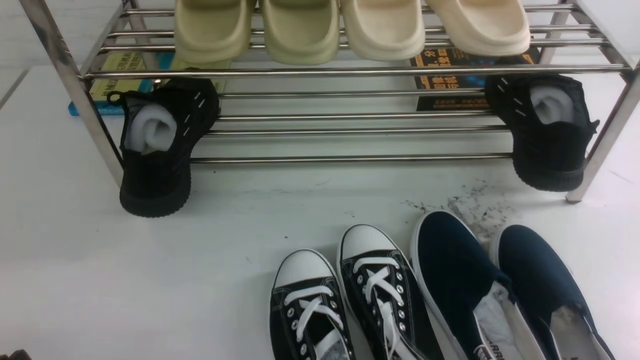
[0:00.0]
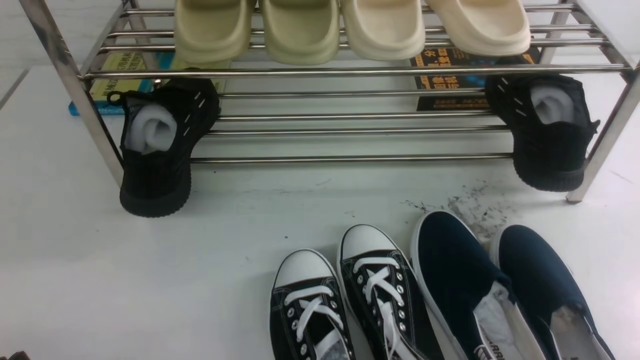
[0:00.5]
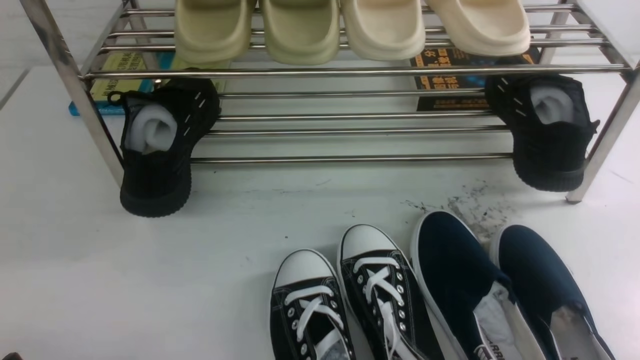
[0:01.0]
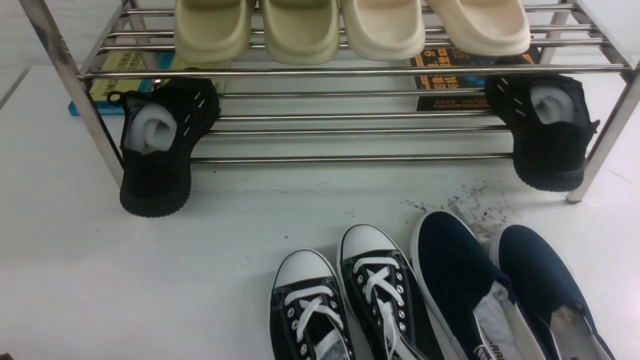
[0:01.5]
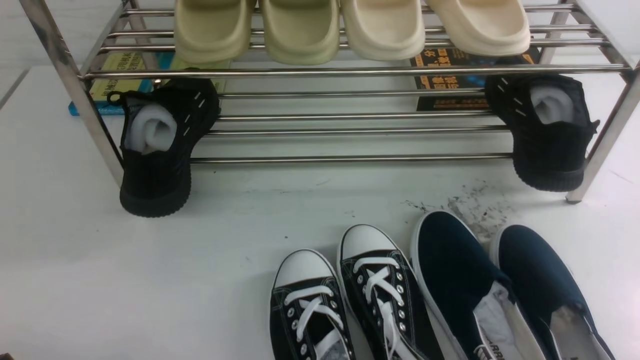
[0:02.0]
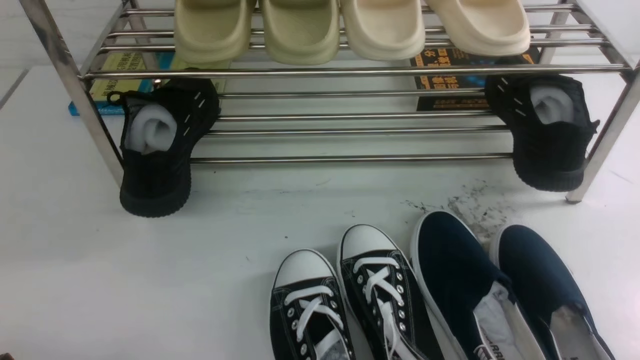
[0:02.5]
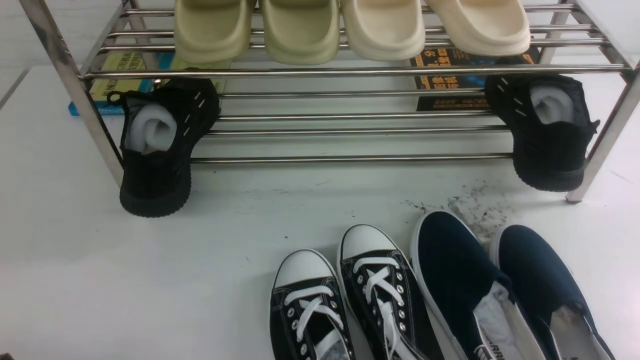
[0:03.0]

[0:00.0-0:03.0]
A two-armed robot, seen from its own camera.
0:01.5 to 0:03.0: Both grippers stay put.

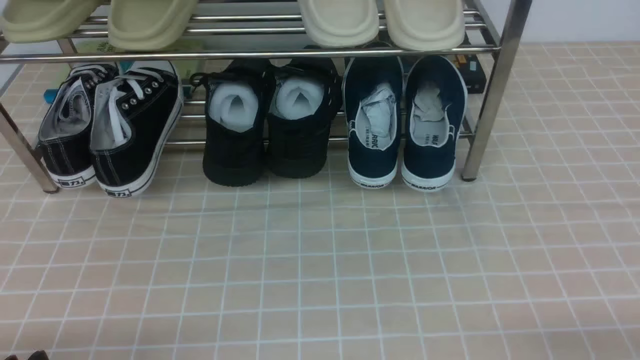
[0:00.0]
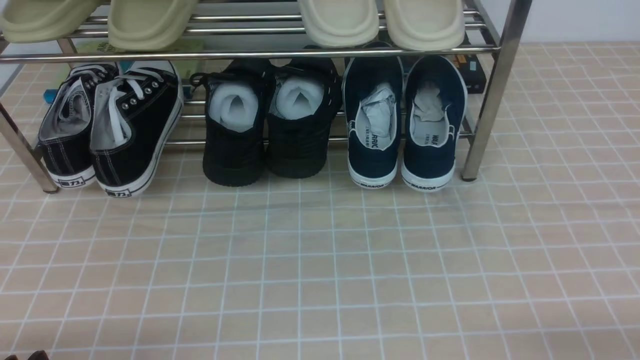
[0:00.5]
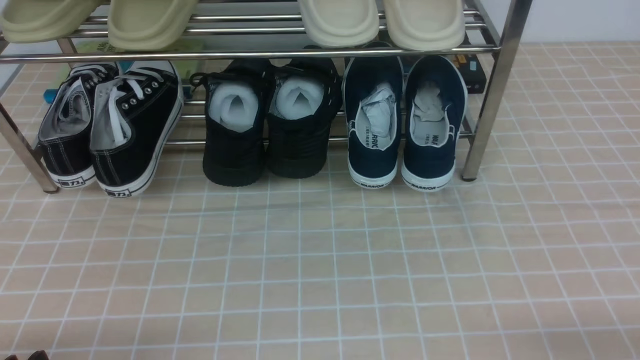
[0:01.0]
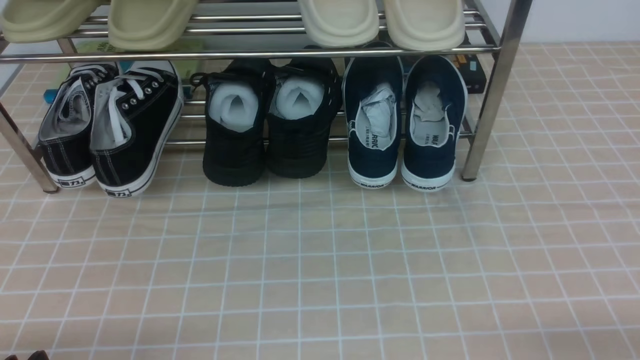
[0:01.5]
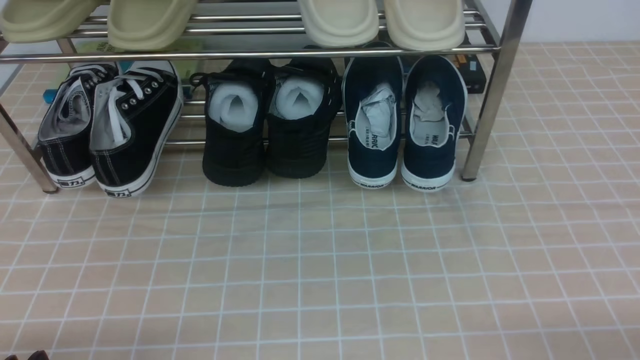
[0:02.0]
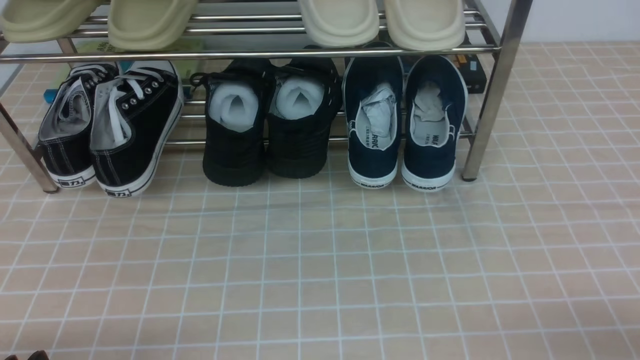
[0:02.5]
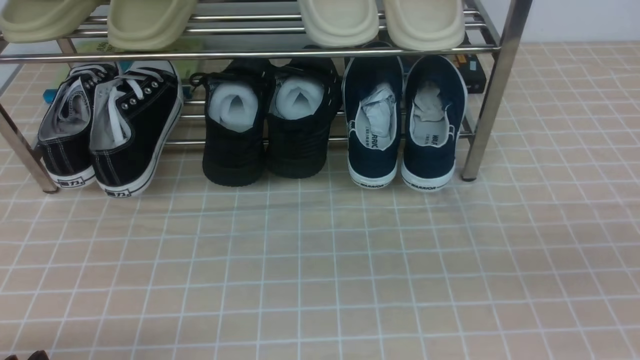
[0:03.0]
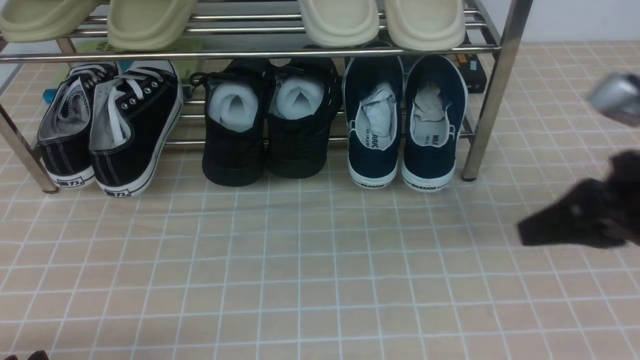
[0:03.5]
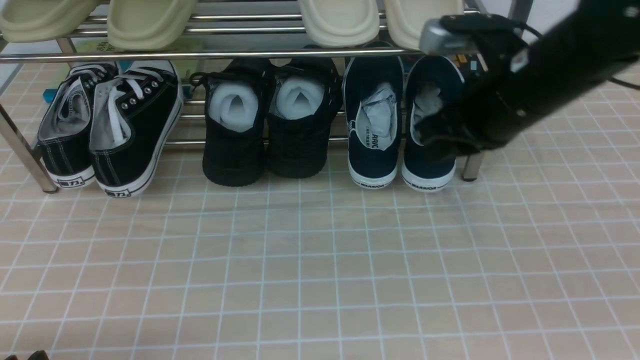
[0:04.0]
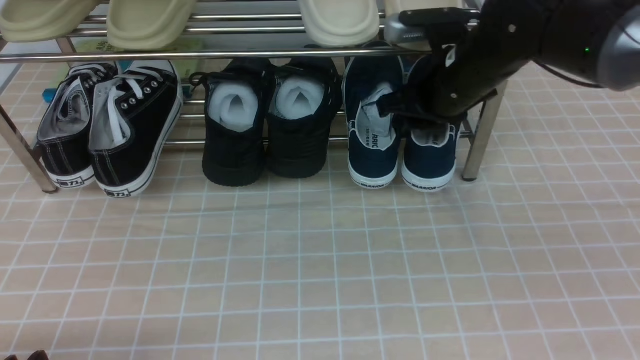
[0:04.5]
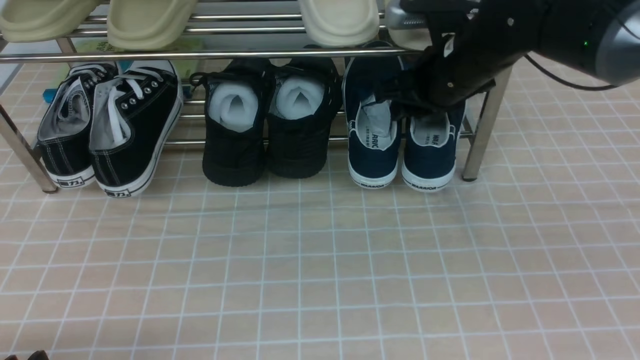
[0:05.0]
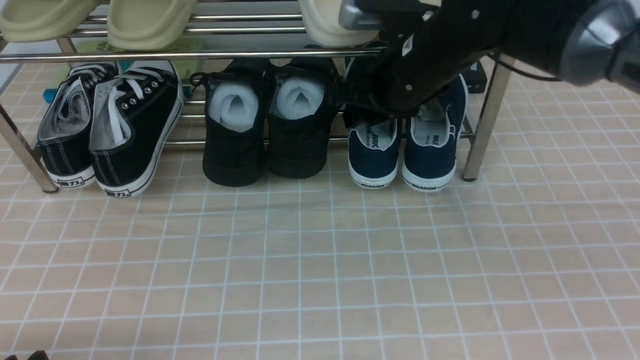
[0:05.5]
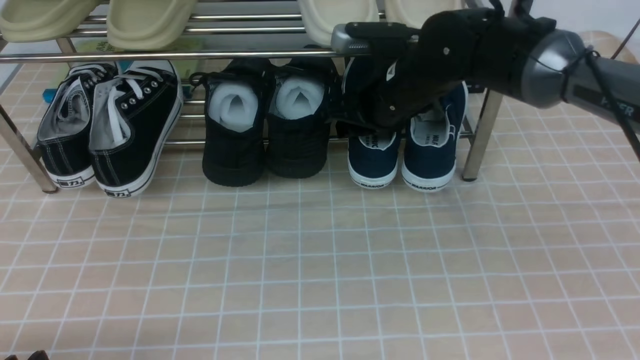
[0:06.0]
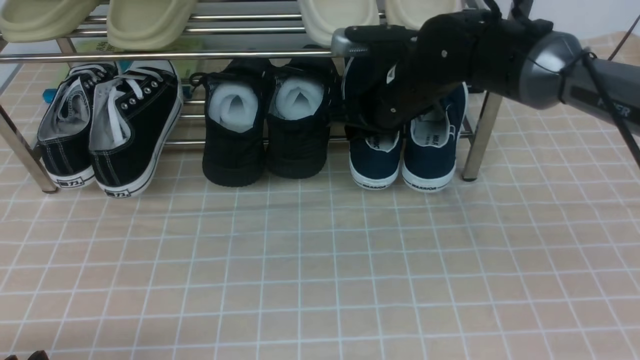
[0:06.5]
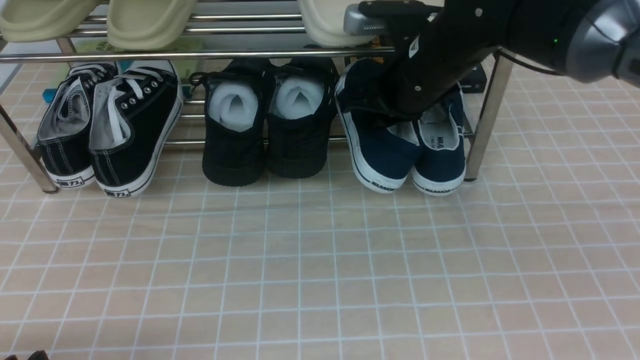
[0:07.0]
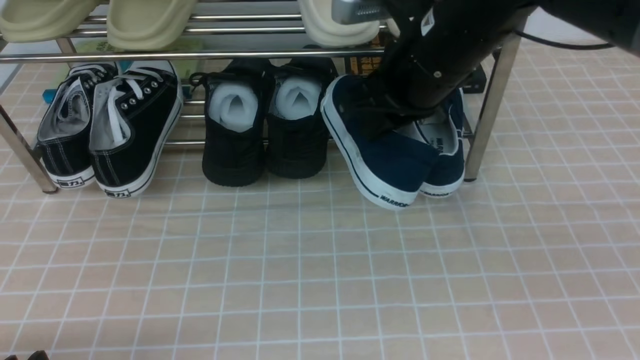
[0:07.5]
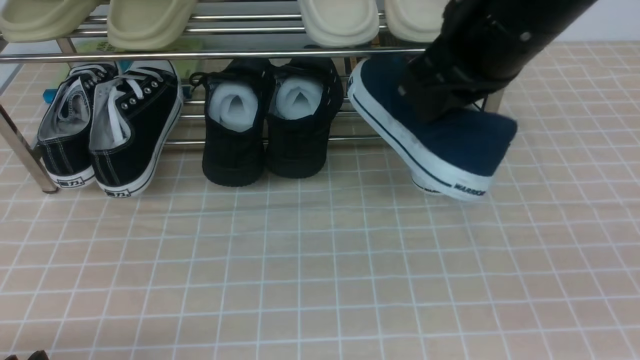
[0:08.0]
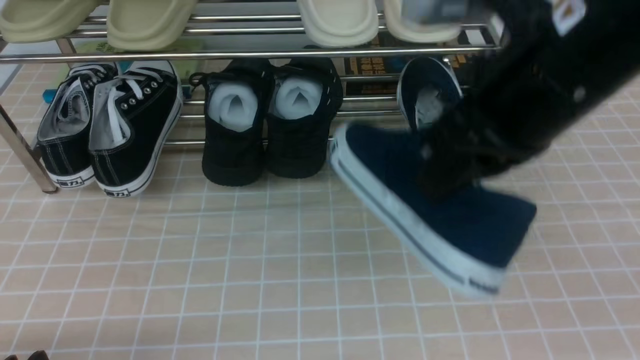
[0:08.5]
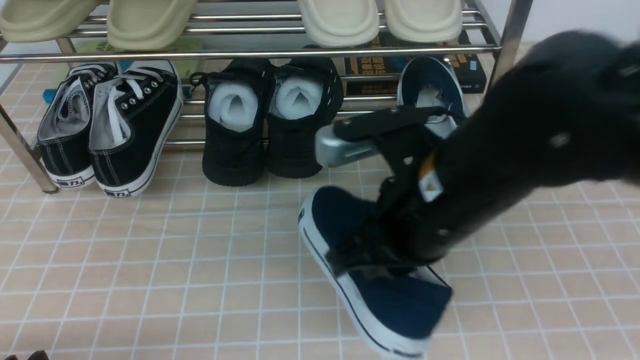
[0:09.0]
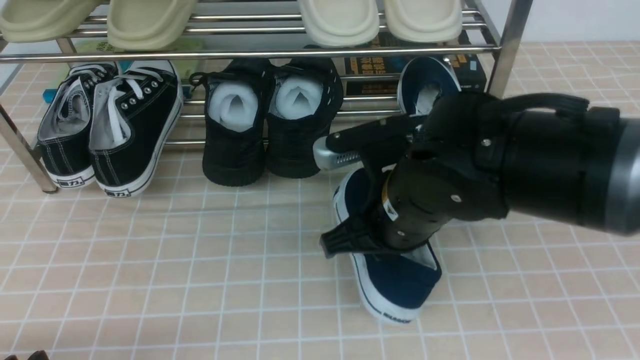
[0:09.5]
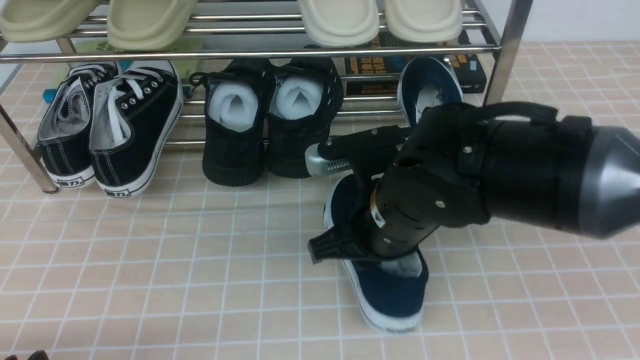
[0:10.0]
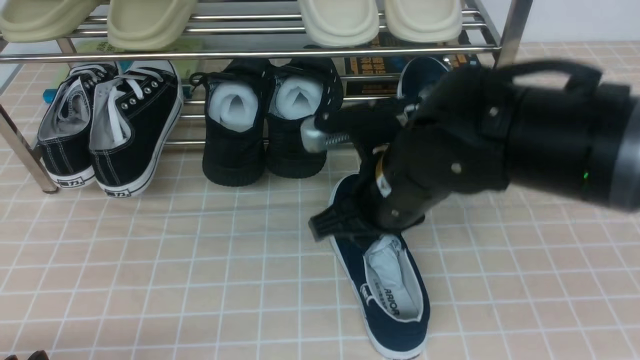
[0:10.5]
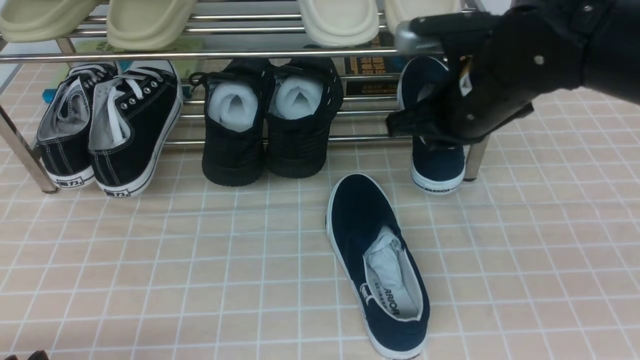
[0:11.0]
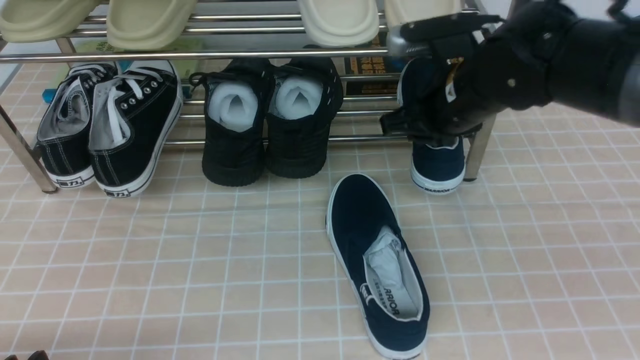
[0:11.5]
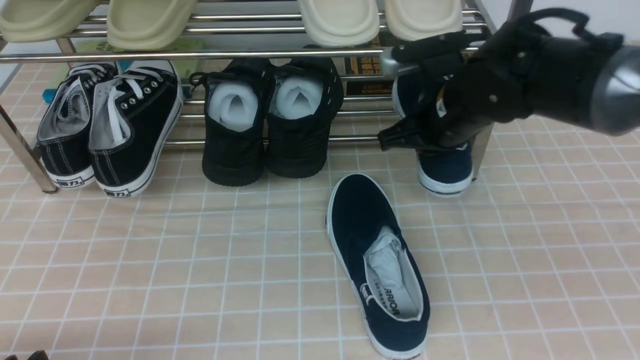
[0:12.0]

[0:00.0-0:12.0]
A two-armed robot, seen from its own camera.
Step, 0:00.0 to 0:06.5: use the right arm to clamp a shoe on the right side of the shoe rack.
Step, 0:07.0 to 0:10.0: use the right arm to take out the clamped shoe from the shoe rack and put it down.
Step, 0:10.5 to 0:11.5: use the right arm to clamp a shoe on the right side of the shoe rack.
0:02.0 to 0:04.0: The right gripper moves forward, to the left and upward, about 35 cm, and closes, then reopens.
0:04.0 to 0:06.0: The right gripper moves forward, to the left and downward, about 15 cm, and opens.
0:06.0 to 0:08.0: The right gripper goes roughly 20 cm upward and backward, and closes its fingers.
0:08.0 to 0:10.0: The right gripper travels downward and to the left by roughly 20 cm, and opens.
0:10.0 to 0:12.0: The right gripper moves forward and to the right, roughly 15 cm, and closes its fingers.

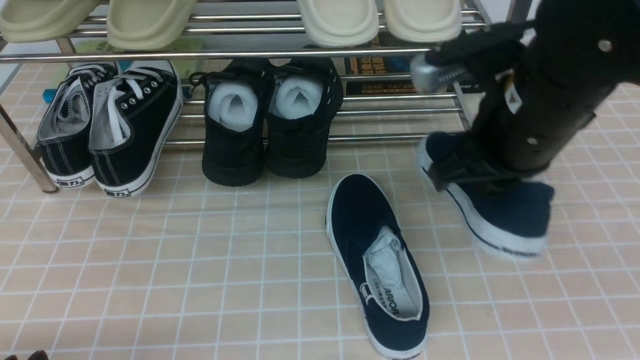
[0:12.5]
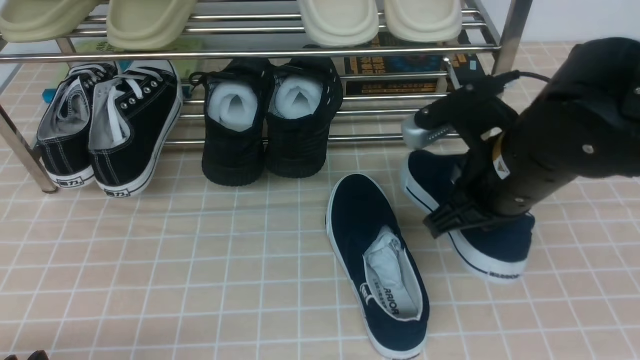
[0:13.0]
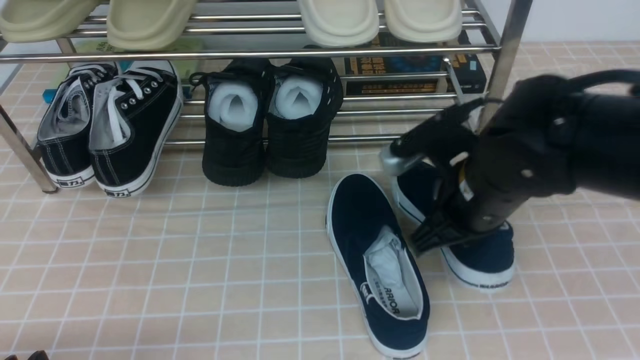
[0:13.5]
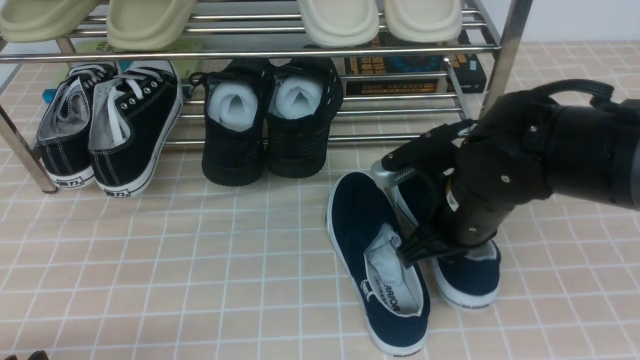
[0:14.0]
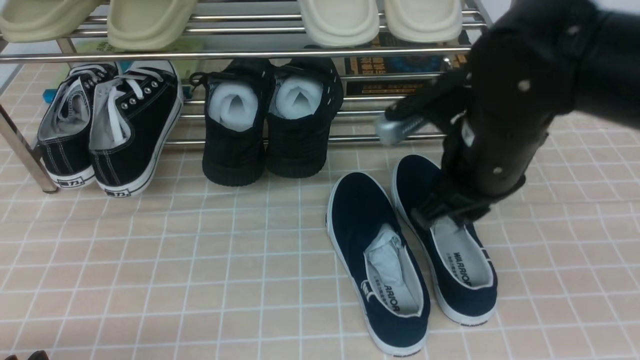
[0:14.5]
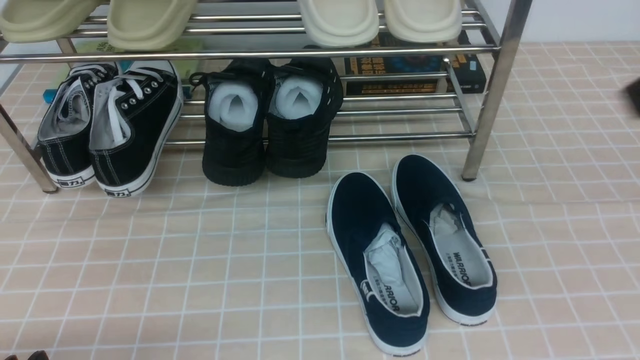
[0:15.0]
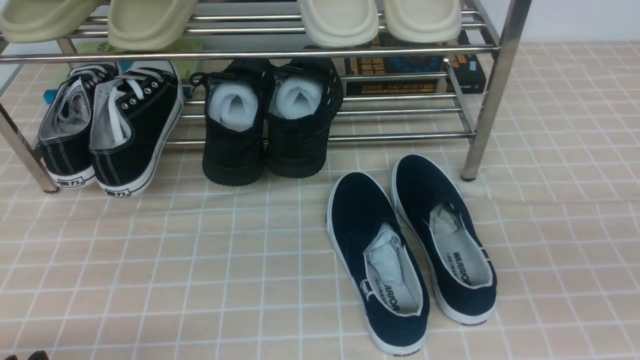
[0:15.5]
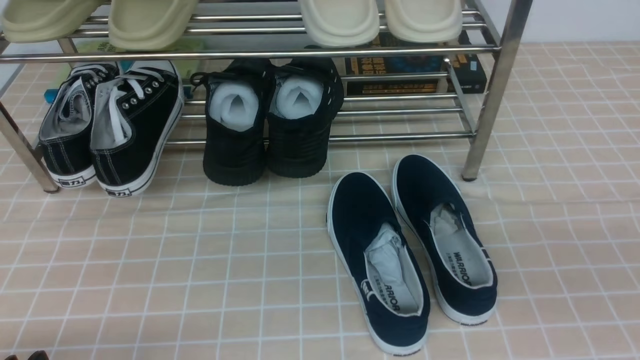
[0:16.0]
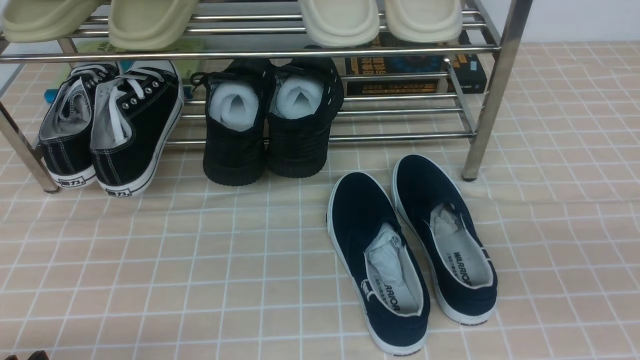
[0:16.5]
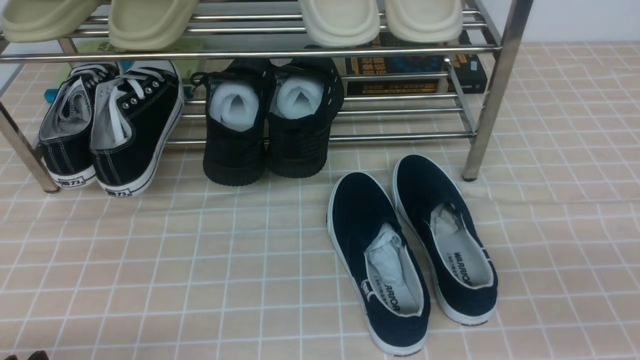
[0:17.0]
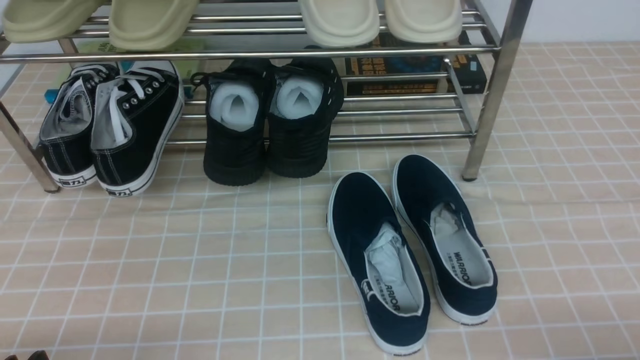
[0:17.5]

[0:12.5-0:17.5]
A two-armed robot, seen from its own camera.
Step, 0:12.5 to 0:14.0: use the right arm to take out the clamped shoe from the shoe rack and put it down.
0:12.5 to 0:15.0: The right gripper travels upward, backward and to the right by some 20 cm, and opens and closes again.
0:15.0 to 0:17.5: The right gripper shifts about 25 cm downward.
